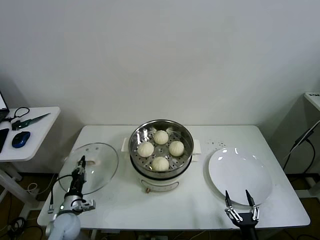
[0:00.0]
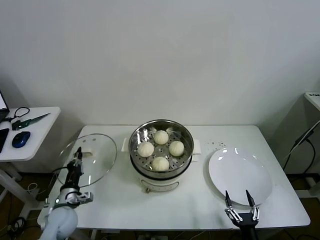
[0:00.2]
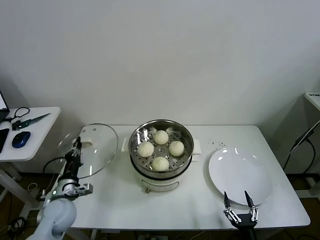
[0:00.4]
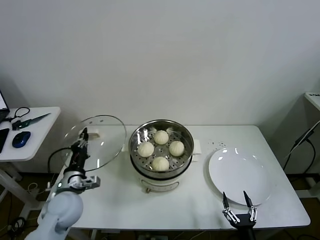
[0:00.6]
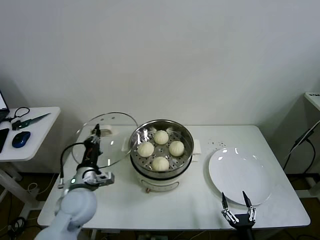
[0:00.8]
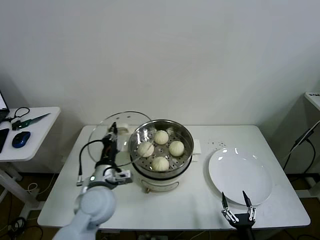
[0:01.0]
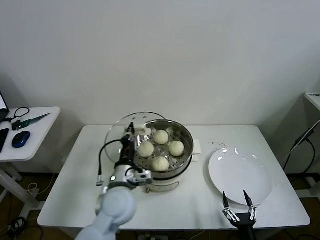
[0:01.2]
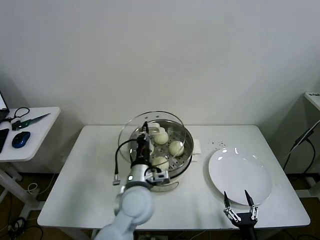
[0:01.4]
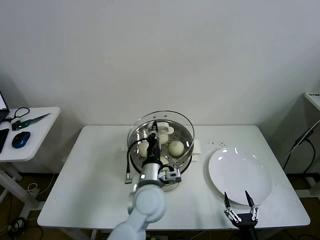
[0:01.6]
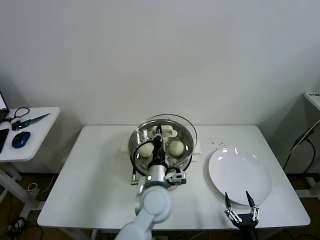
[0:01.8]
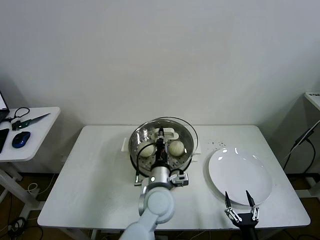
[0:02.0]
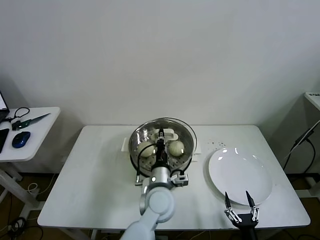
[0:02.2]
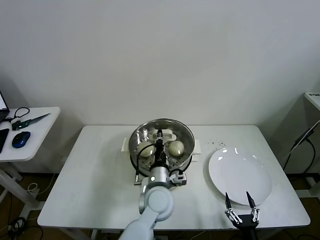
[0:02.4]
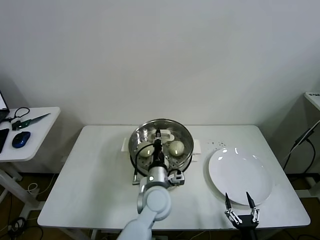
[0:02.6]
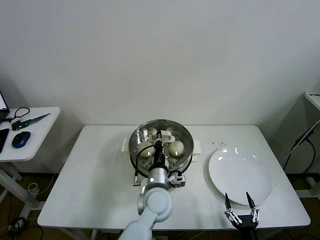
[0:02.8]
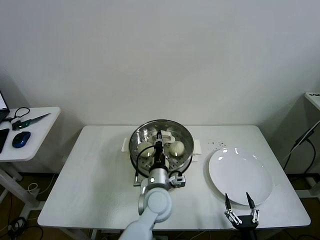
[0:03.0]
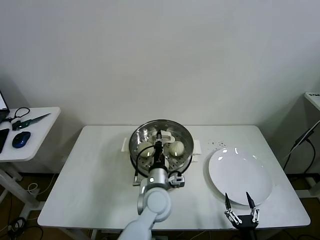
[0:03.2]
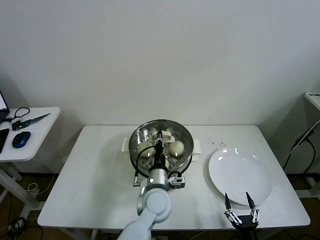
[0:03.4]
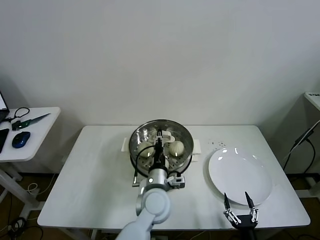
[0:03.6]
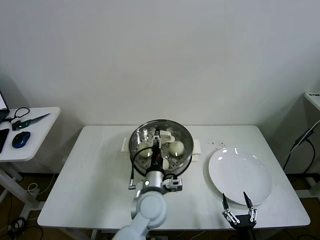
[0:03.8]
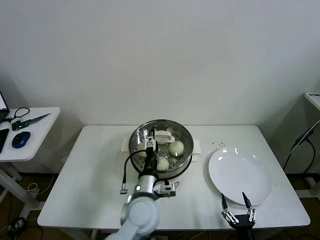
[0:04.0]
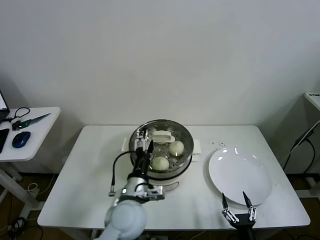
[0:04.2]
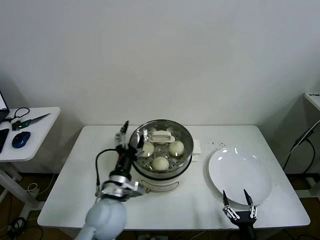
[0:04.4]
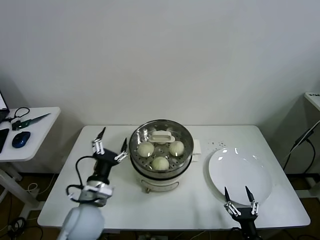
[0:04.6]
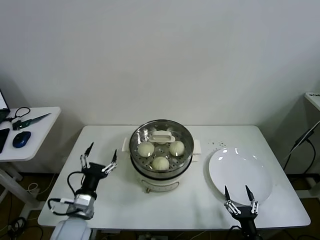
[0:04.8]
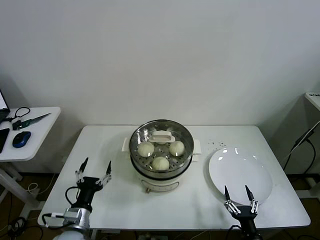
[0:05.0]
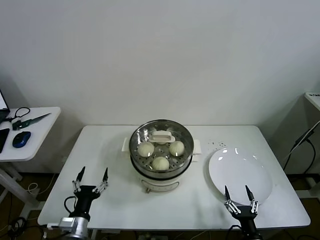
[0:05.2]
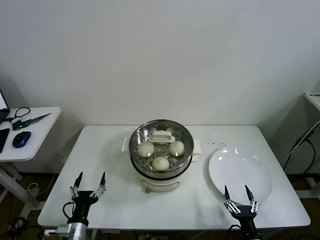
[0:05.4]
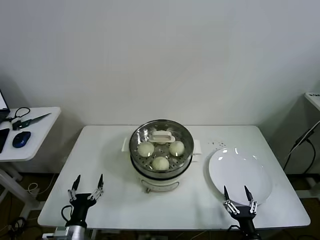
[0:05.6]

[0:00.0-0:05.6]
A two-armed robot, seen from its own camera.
Task of the whole recording: take steamed baozi put them in steamer then cover it.
Step, 0.0 to 3.8 s: Place the pot lid on the steamer with left gripper.
0.0 to 1.4 s: The left gripper goes roughly 35 cm to the right and upward.
1.4 to 2.8 s: The left gripper travels to the right and downward by roughly 10 cm.
2.8 to 4.2 s: The left gripper goes about 5 cm to the left, and opens up.
4.2 to 5.6 s: The left gripper moves to the left, downward and backward, about 25 cm.

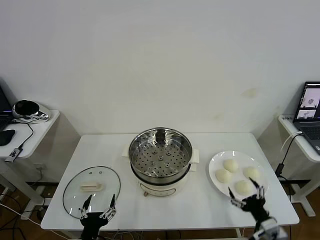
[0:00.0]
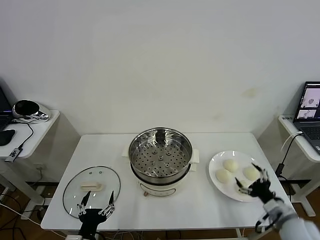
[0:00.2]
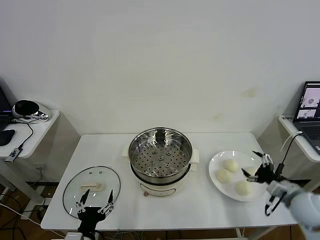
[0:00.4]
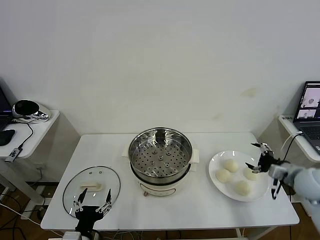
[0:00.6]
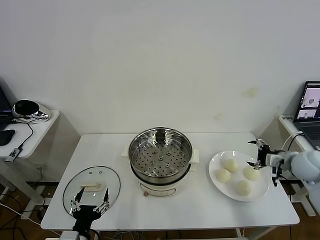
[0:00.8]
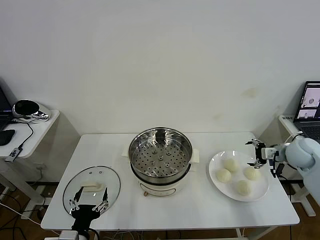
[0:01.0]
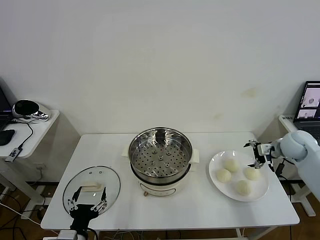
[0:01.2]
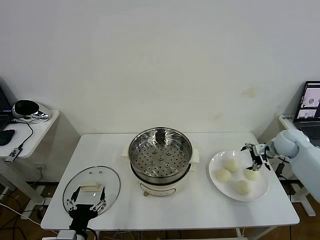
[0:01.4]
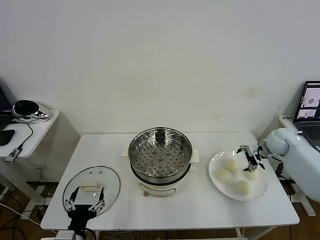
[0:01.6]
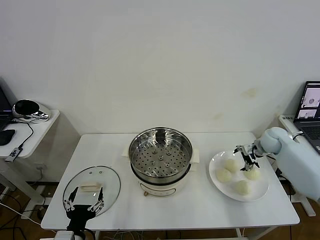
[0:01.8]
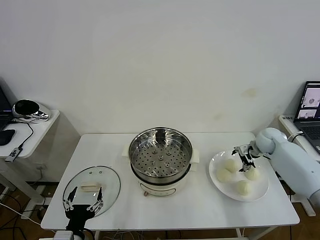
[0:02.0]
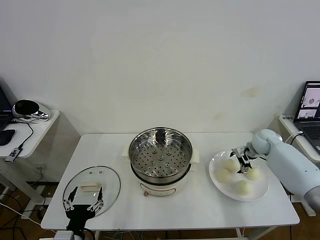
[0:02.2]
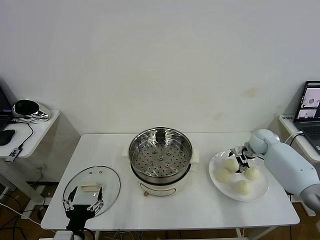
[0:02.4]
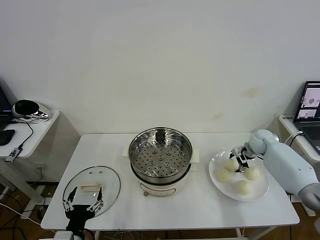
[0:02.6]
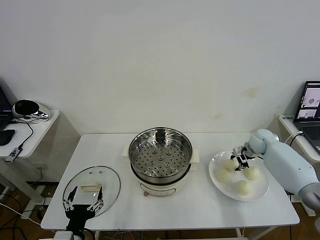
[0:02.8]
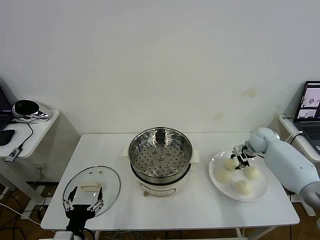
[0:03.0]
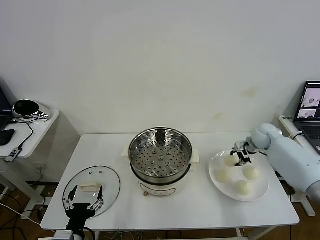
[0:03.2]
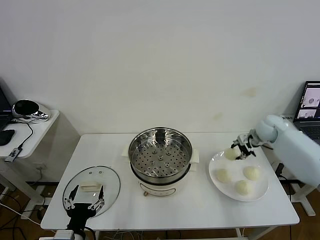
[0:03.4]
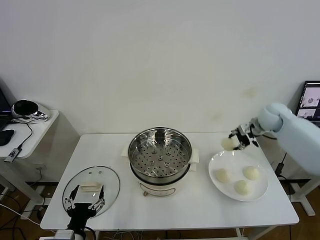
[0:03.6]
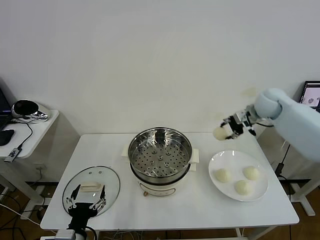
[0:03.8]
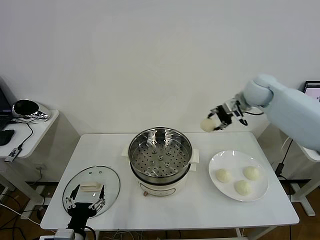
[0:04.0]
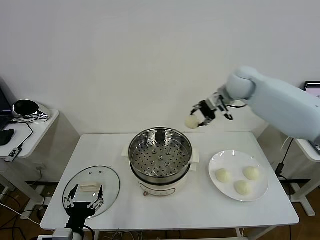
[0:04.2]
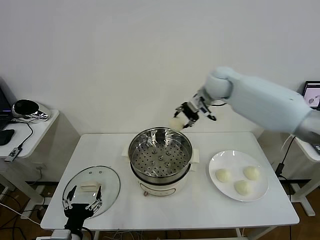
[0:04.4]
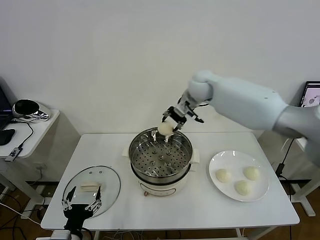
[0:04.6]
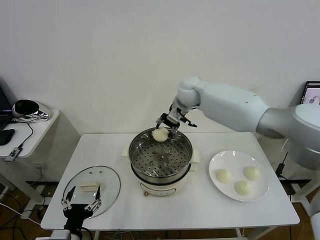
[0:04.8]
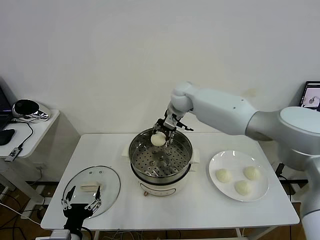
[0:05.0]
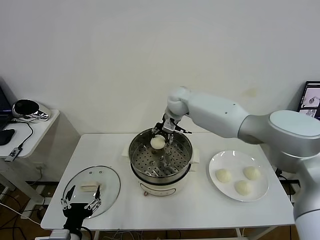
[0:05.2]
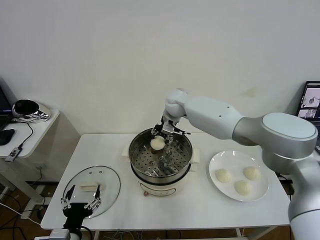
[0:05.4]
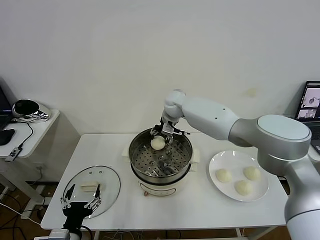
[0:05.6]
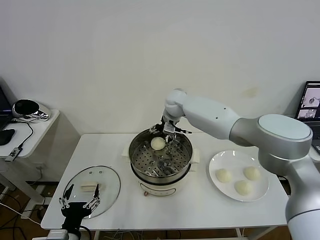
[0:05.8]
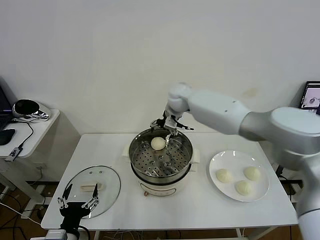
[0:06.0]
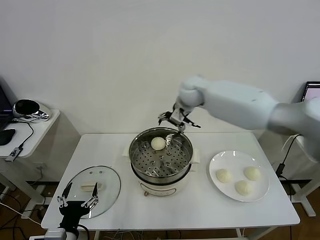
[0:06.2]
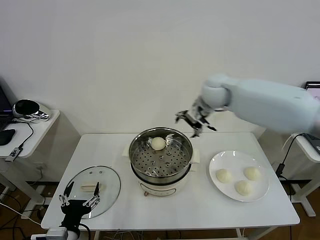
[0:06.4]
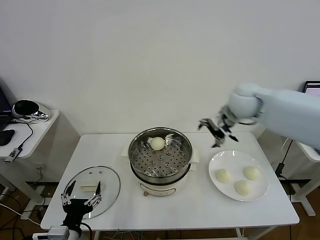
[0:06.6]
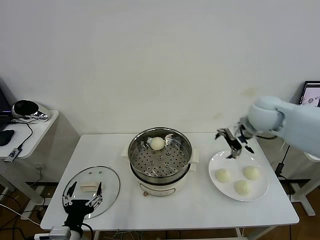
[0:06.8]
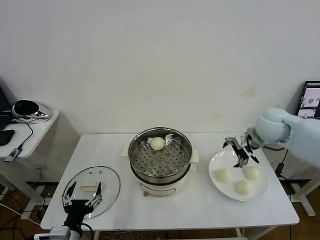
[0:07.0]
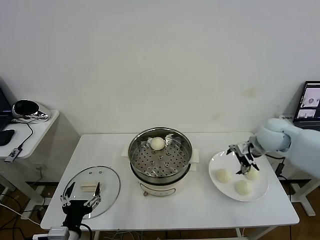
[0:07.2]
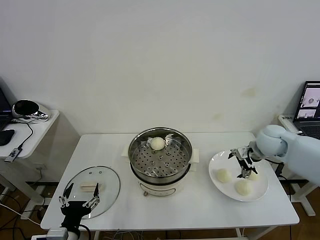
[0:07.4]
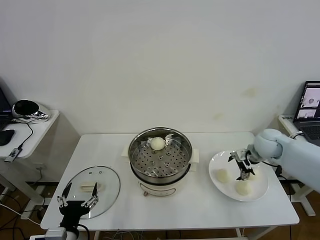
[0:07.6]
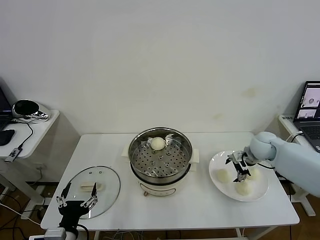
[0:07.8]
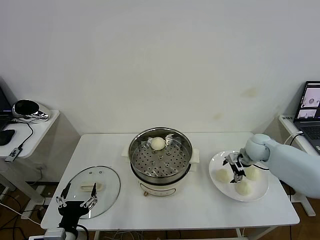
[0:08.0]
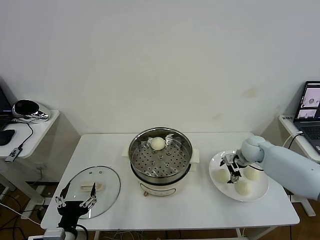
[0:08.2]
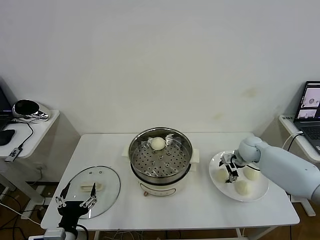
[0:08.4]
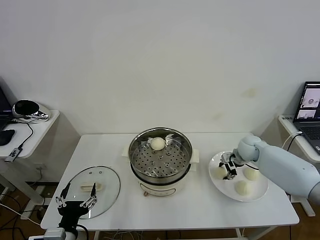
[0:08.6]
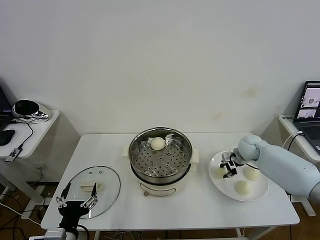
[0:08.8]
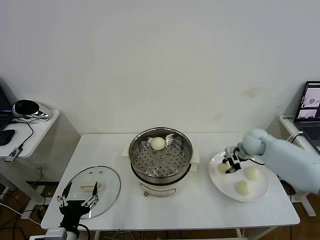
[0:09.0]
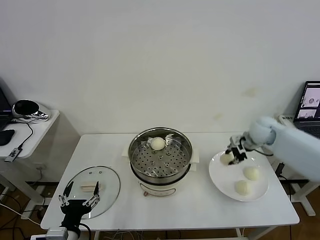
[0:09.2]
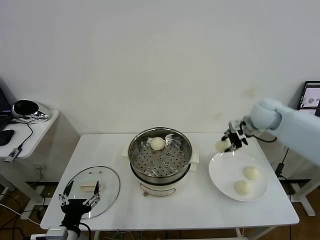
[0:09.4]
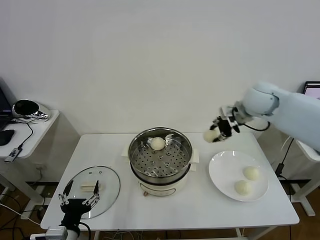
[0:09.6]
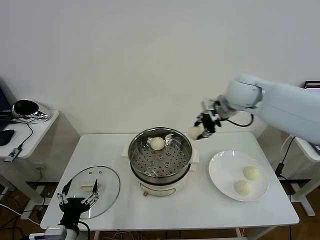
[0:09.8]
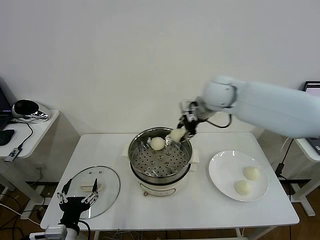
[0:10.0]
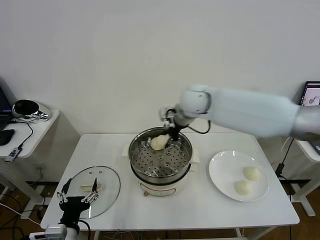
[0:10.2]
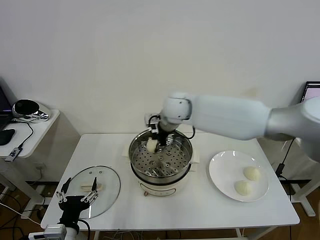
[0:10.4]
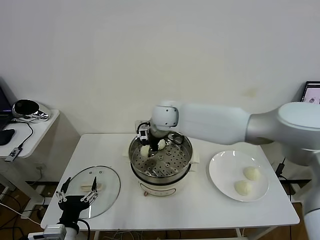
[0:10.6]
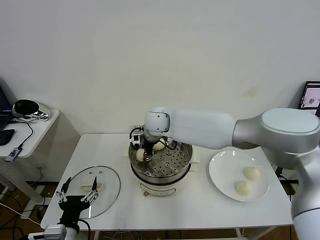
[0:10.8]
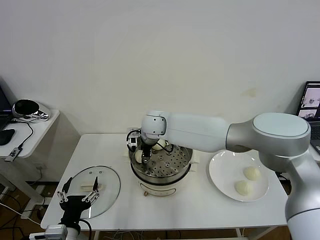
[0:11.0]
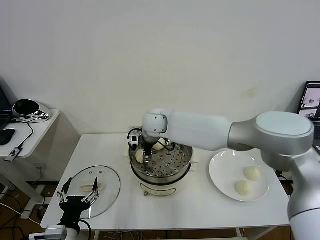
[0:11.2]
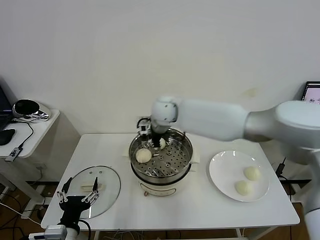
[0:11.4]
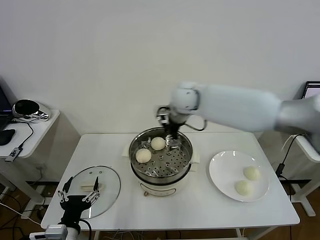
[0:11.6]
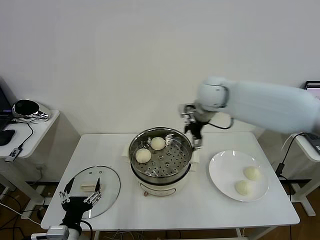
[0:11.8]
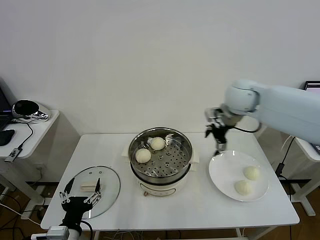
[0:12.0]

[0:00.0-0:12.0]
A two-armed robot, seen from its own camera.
Task of the whole recording: take steamed baozi put them in steamer then cover it.
Step, 0.0 to 2.6 s: Grasp the baozi in the plate with right gripper.
Step, 2.8 to 5.6 s: Place the baozi on the steamer with right gripper.
Step, 5.8 to 8.8 s: Grasp the baozi in the plate with right gripper.
Step, 9.0 to 11.2 s: Place the baozi on the steamer with right gripper.
1.6 to 3.0 s: The right gripper closes.
3.0 to 4.4 s: The right gripper moves to the left and upward, roughly 35 cm.
4.4 to 6.0 s: The right gripper shifts about 5 cm to the left, and opens.
6.0 to 7.6 s: The right gripper travels to the right, downward and backward by approximately 35 cm.
7.6 to 9.0 s: The right gripper closes.
9.0 to 10.4 s: The right gripper travels to the left by roughly 35 cm.
10.4 to 12.0 s: The right gripper travels to the right by about 25 cm, and opens.

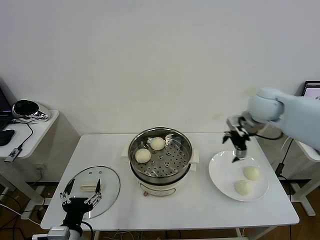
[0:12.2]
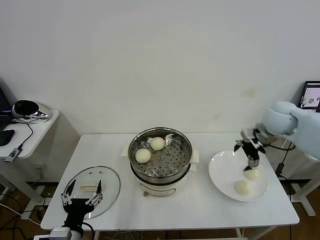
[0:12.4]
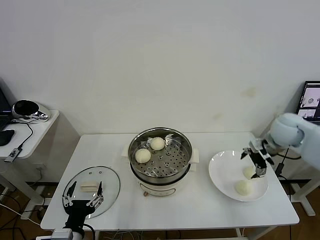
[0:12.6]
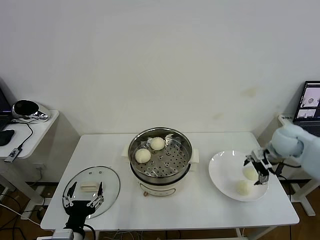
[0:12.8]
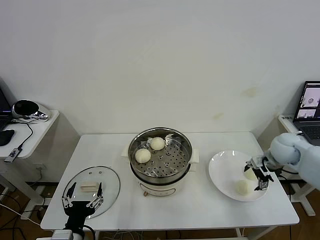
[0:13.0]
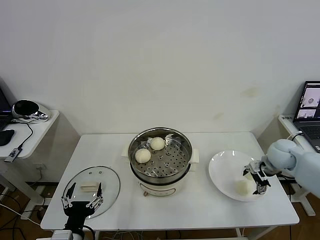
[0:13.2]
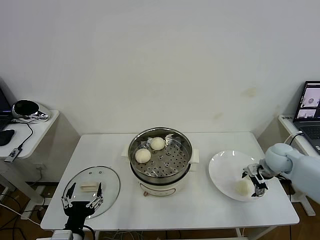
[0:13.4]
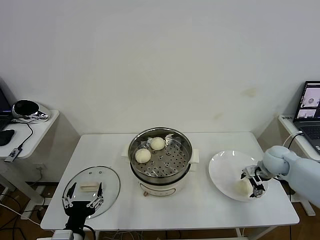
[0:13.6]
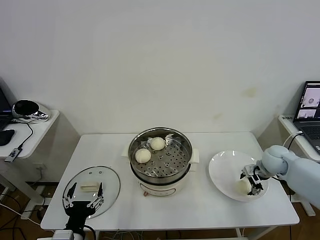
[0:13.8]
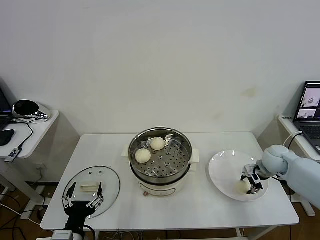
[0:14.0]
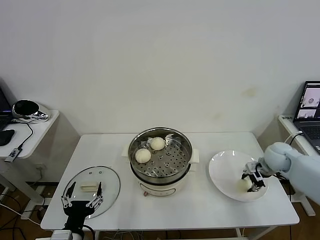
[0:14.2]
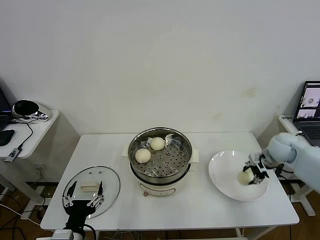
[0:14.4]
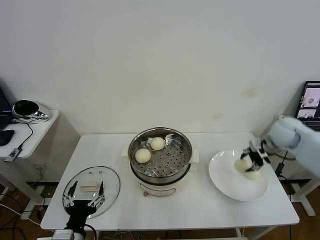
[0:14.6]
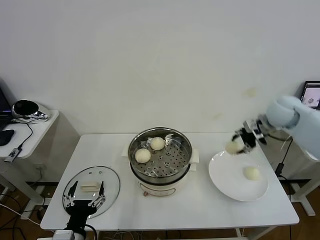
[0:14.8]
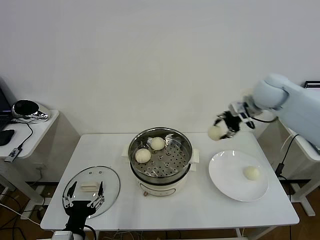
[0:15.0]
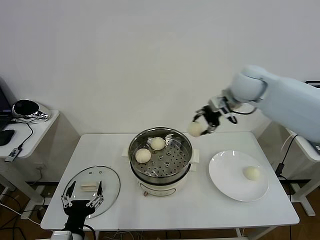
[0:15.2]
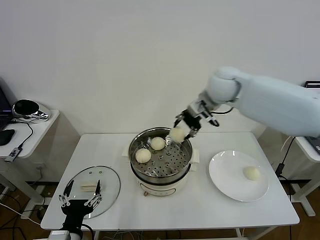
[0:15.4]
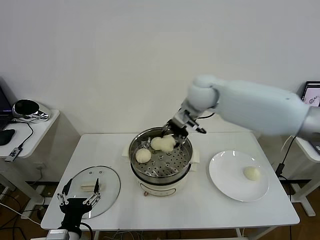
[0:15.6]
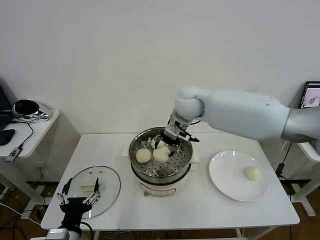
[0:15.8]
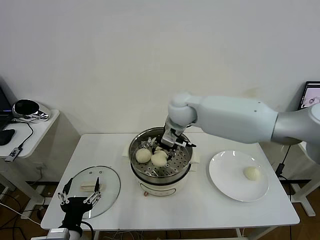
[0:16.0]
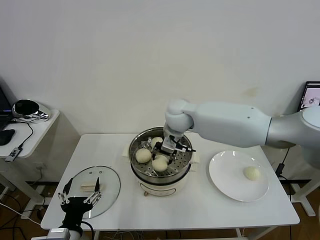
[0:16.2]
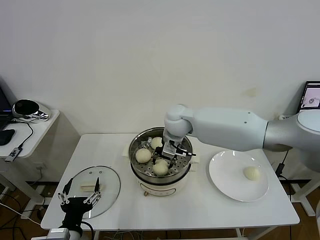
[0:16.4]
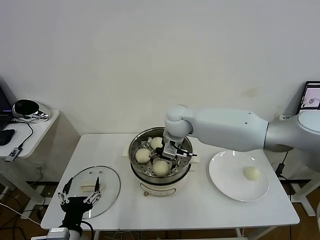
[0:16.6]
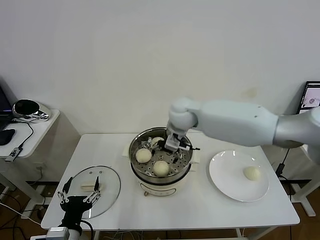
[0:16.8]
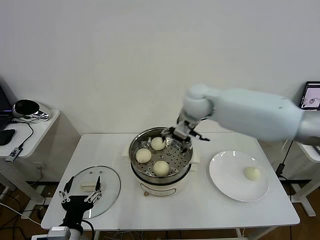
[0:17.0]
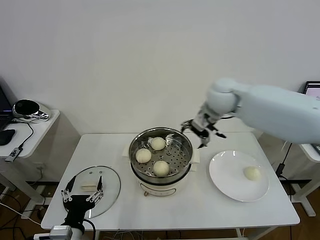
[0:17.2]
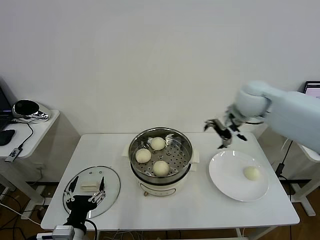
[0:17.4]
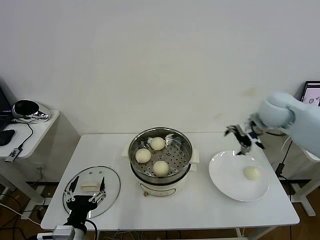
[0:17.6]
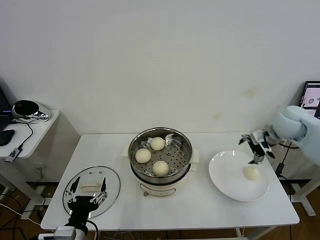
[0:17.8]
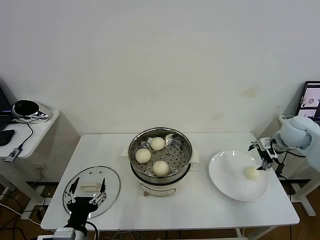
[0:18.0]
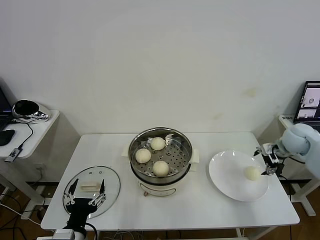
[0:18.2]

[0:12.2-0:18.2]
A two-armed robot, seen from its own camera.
Task of the whole recording: take steamed baozi put them in steamer then cover it.
Step, 12.2 to 14.0 s: Grasp the baozi in the plate with right gripper.
Step, 14.2 to 16.6 s: Place the baozi on the steamer with right gripper.
12.2 to 13.8 s: The right gripper shifts roughly 20 cm downward and to the right.
13.8 to 15.2 s: The right gripper shifts approximately 30 cm upward and to the left.
15.2 to 16.6 s: The right gripper shifts about 20 cm to the left and downward, and opens its fingers.
16.6 to 18.2 s: The right gripper travels to the right by roughly 40 cm.
